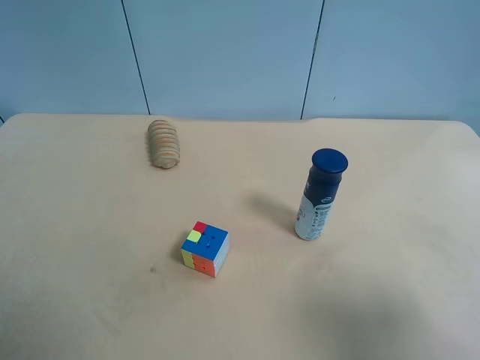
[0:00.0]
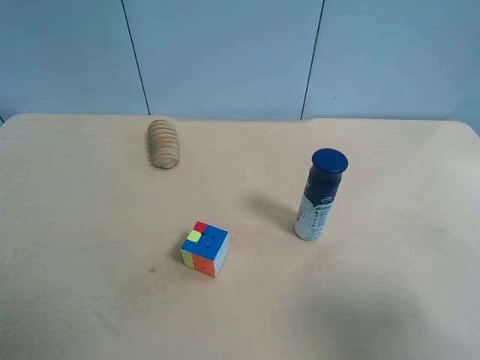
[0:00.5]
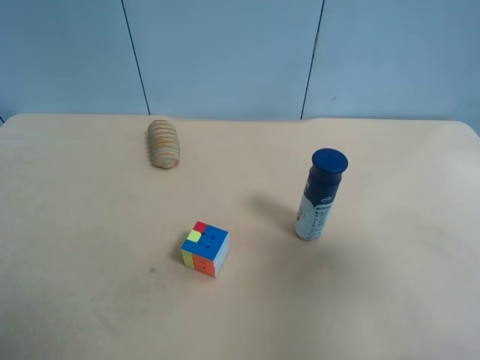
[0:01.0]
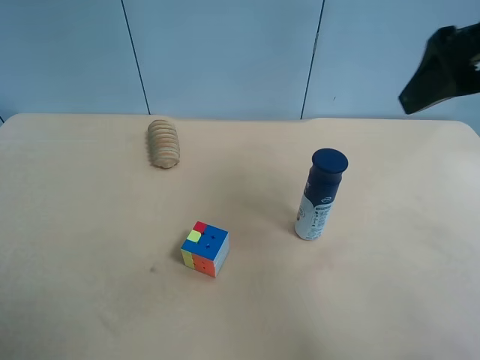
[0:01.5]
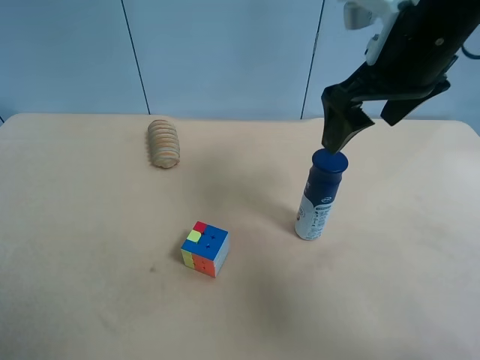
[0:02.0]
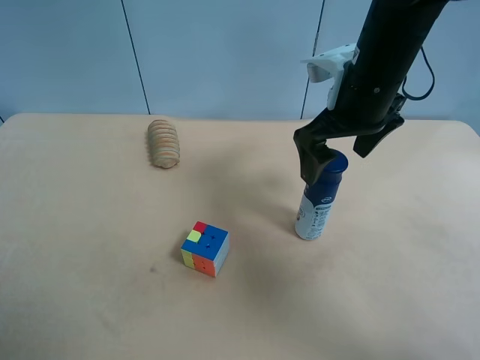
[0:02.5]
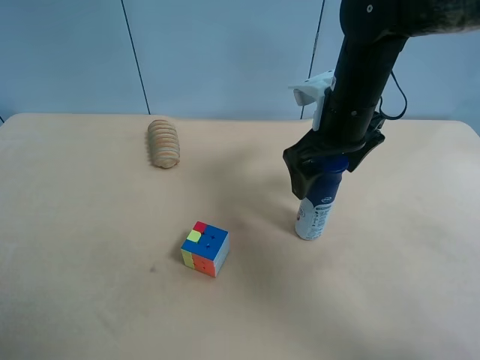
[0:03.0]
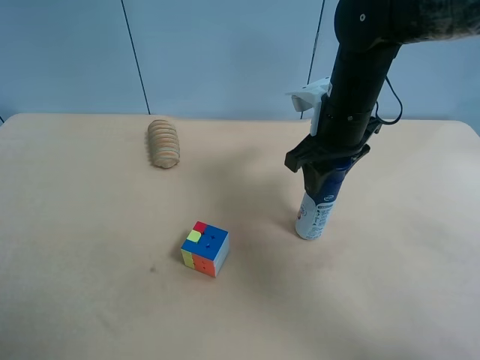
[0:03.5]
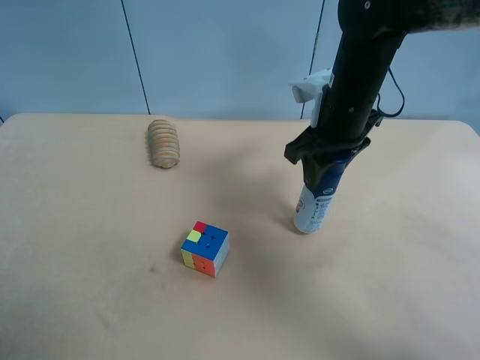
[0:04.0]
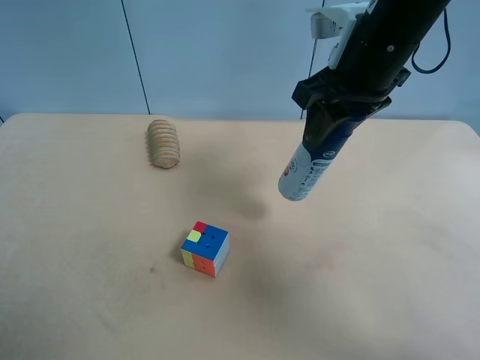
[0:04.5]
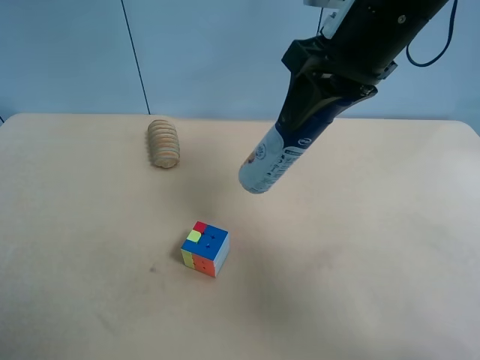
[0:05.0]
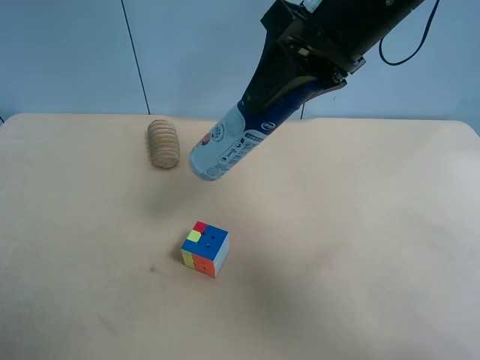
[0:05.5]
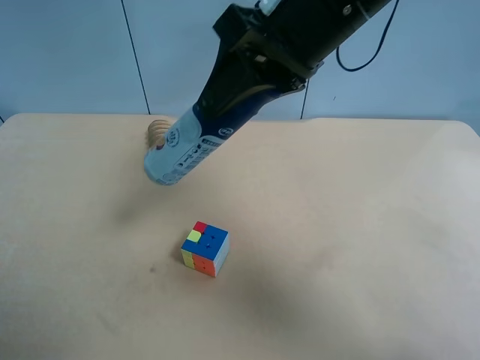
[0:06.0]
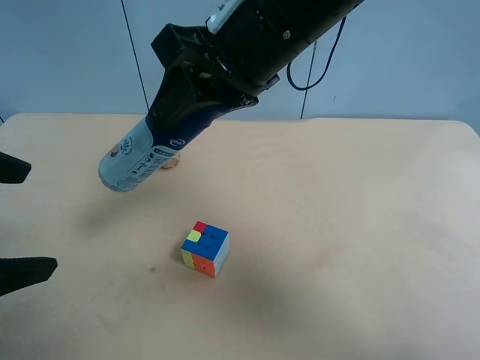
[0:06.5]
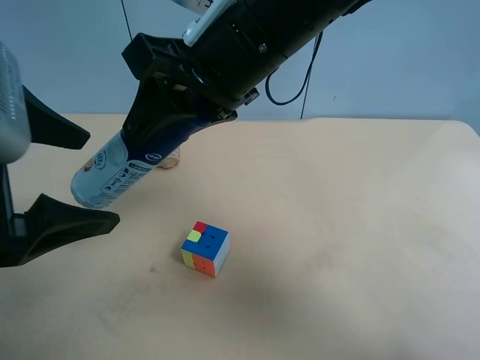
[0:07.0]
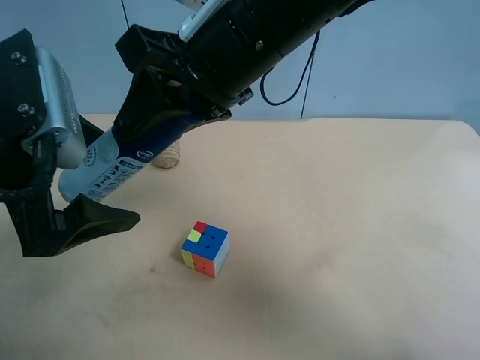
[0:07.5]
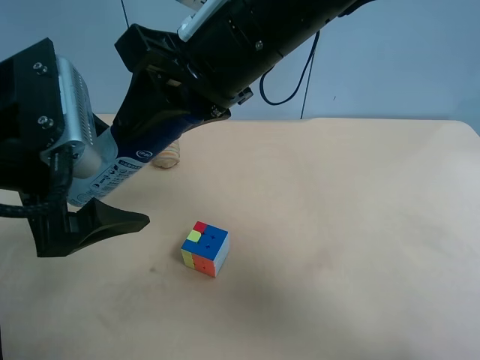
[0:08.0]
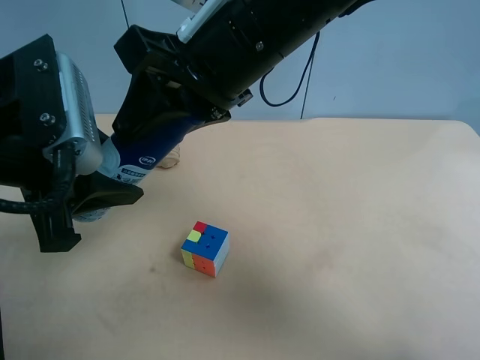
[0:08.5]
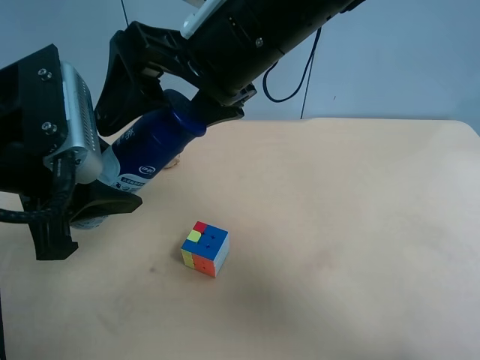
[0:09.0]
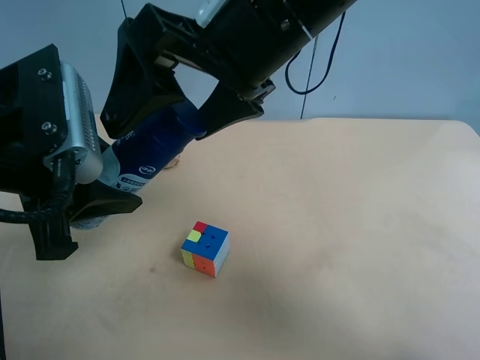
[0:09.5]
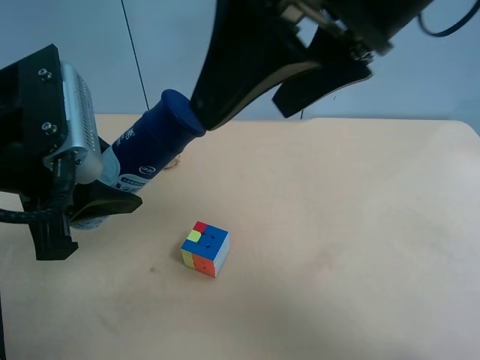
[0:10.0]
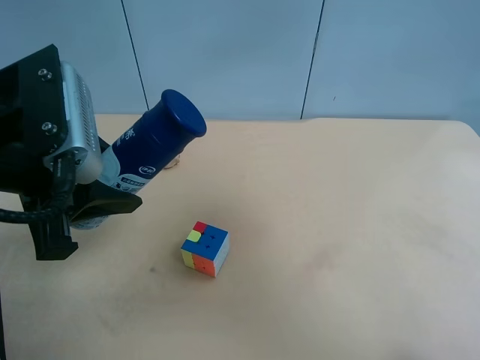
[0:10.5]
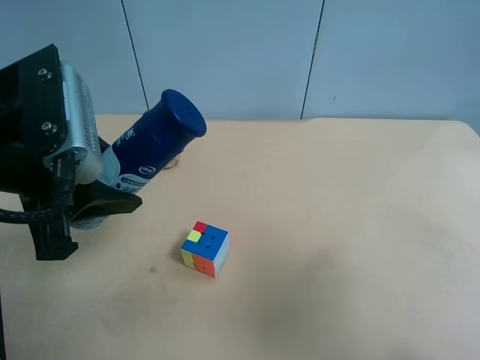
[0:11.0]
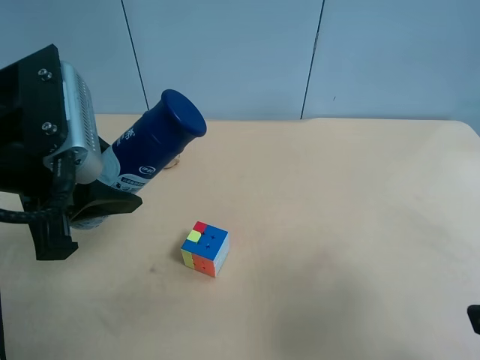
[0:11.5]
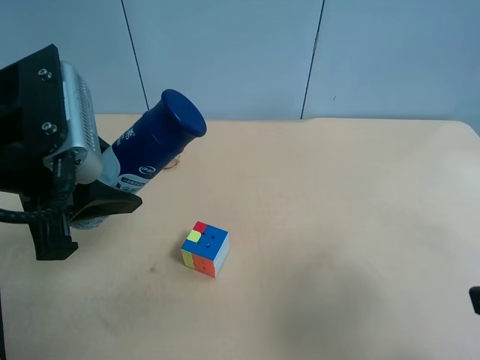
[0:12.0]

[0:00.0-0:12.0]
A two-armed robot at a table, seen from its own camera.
Task of the whole recording: use the right gripper to pick up the item and transfer it from the right gripper to the left gripper.
0:00.0 to 0:02.0: The right gripper heads forward and to the left, covering approximately 30 cm.
0:02.0 to 0:04.0: The right gripper is displaced downward by roughly 5 cm, and closes its fingers.
0:04.0 to 0:06.0: The left gripper goes approximately 5 cm forward. The right gripper moves upward, backward and to the left, approximately 15 cm.
0:06.0 to 0:08.0: The right gripper goes some 5 cm to the left. Meanwhile the left gripper travels forward and to the right by roughly 15 cm.
0:08.0 to 0:10.0: The left gripper closes its fingers. Meanwhile the right gripper moves to the right, upward and backward, roughly 15 cm, and opens.
0:10.0 to 0:12.0: The right gripper travels to the right, backward and downward by approximately 25 cm.

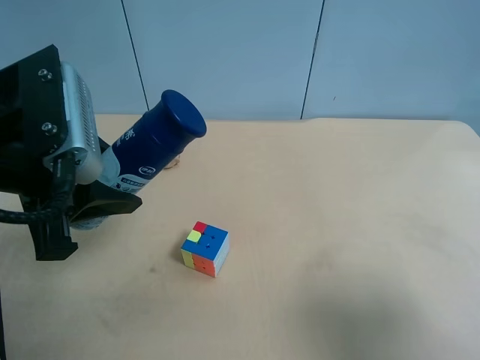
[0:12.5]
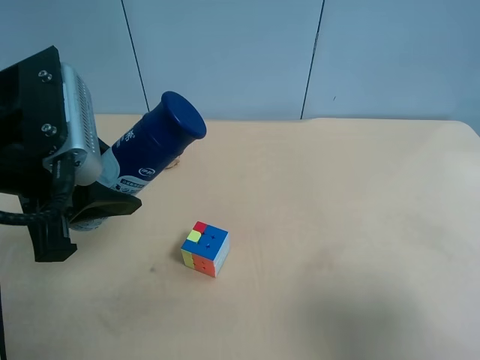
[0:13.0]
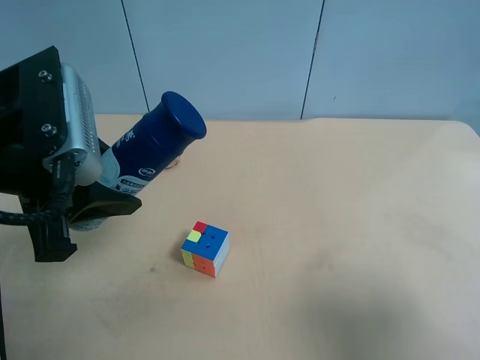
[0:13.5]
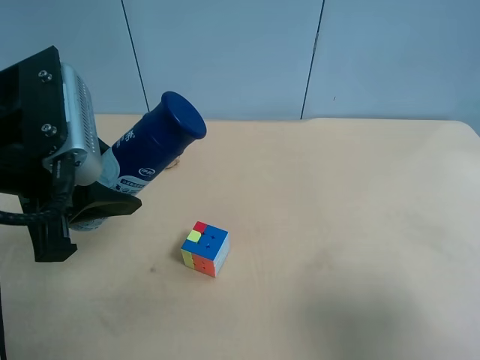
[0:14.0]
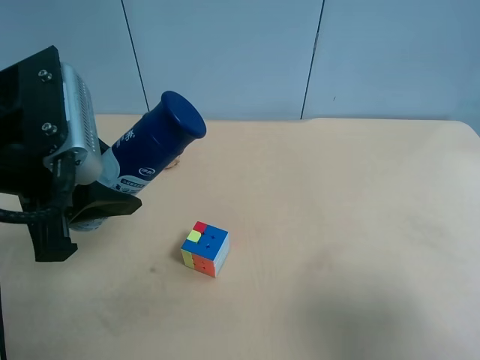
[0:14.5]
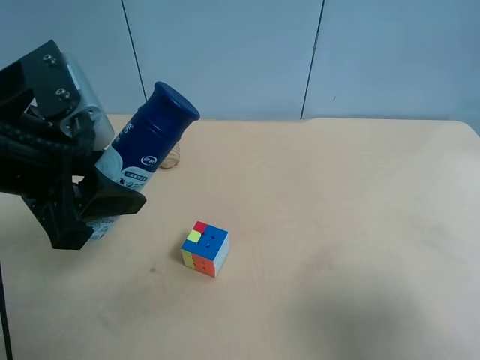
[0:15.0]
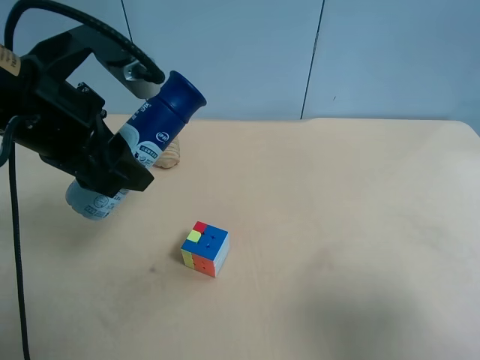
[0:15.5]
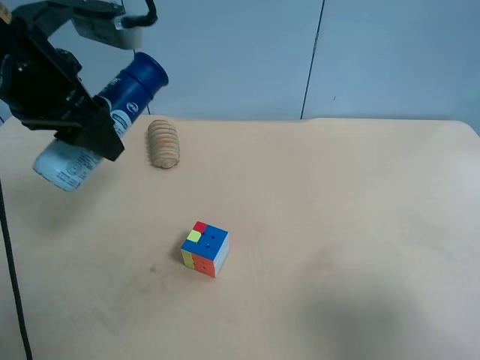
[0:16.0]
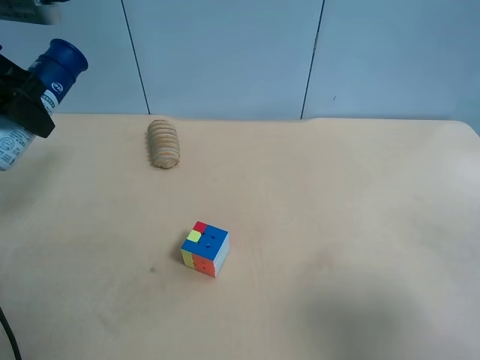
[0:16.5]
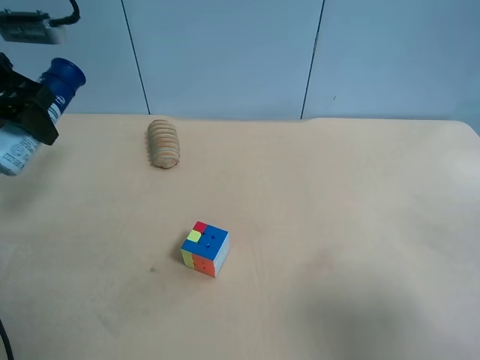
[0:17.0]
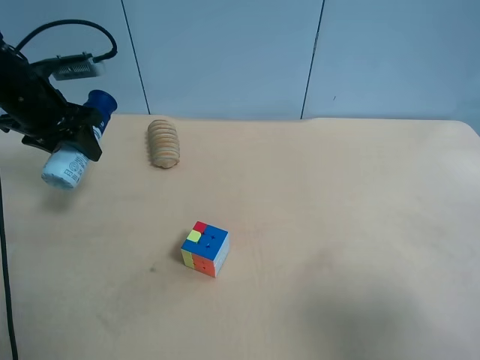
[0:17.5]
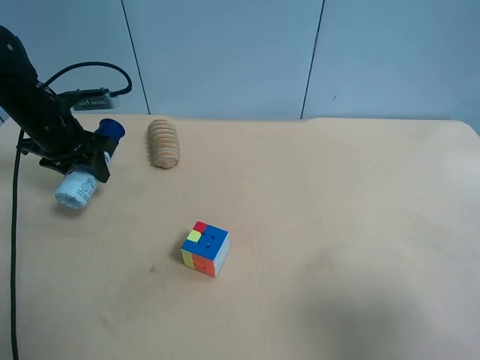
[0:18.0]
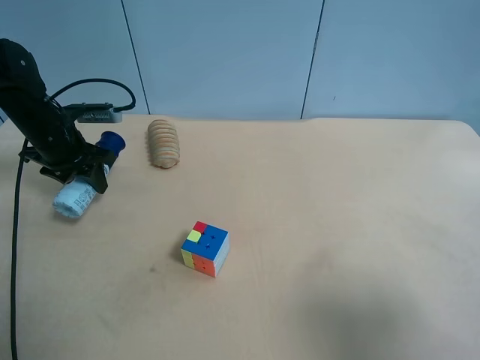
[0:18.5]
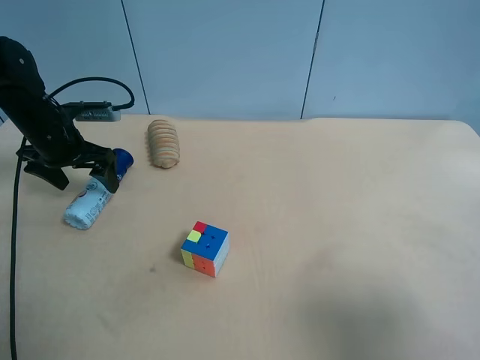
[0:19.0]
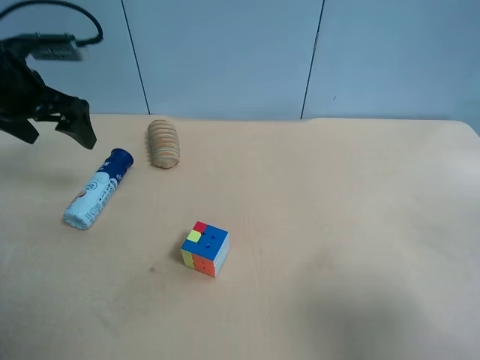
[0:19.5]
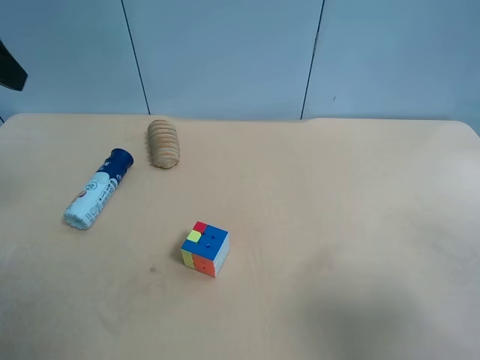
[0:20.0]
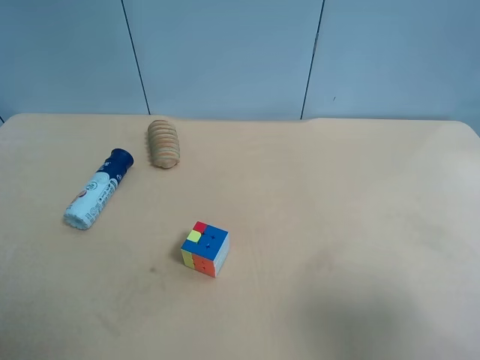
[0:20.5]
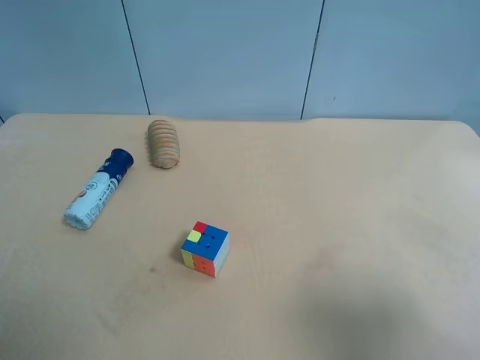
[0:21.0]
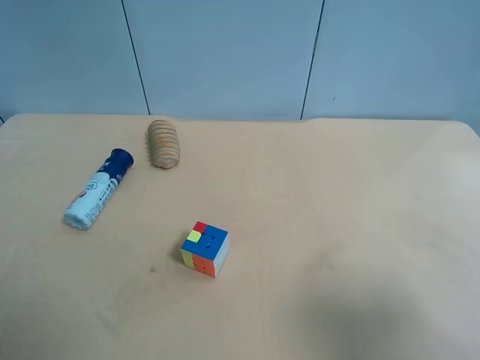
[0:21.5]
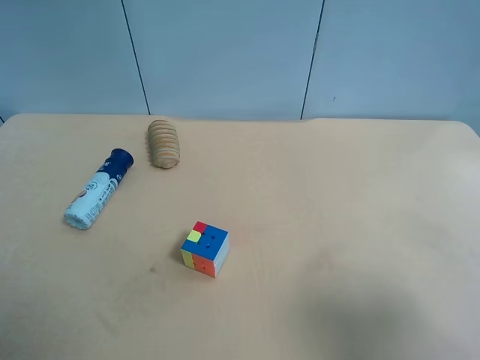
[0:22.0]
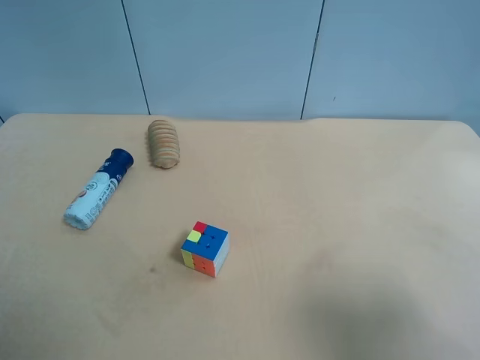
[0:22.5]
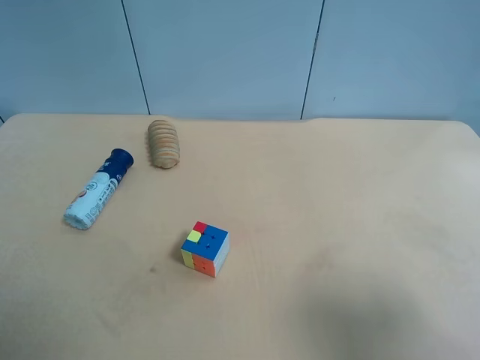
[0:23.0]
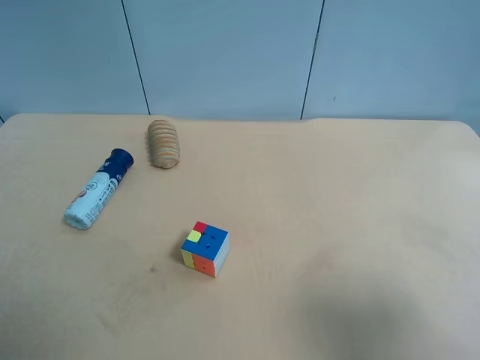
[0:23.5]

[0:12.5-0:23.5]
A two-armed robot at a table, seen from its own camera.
Task of the whole recording: use the right gripper to pick up the item and transfer it from the right gripper to the left gripper.
0:12.5 to 0:14.5: The two grippers keep their place.
0:14.5 to 0:16.0: The left gripper shifts some 10 cm forward.
0:16.0 to 0:18.0: The left gripper is displaced downward, forward and to the left by some 20 cm.
0:18.0 to 0:20.0: The left gripper travels upward and backward by roughly 25 cm, and opens up.

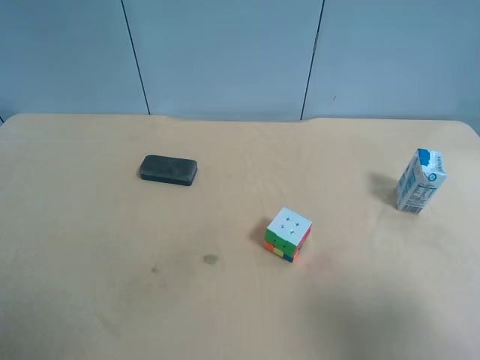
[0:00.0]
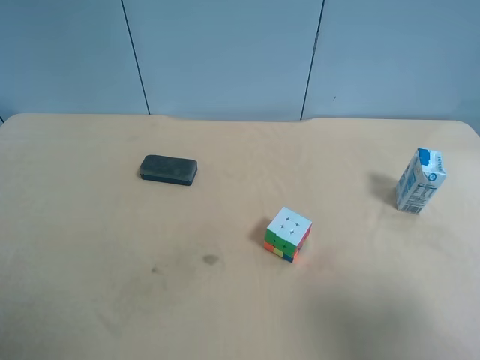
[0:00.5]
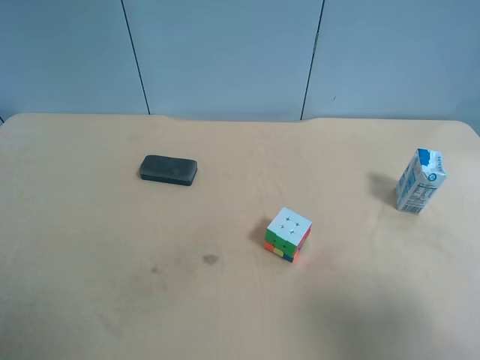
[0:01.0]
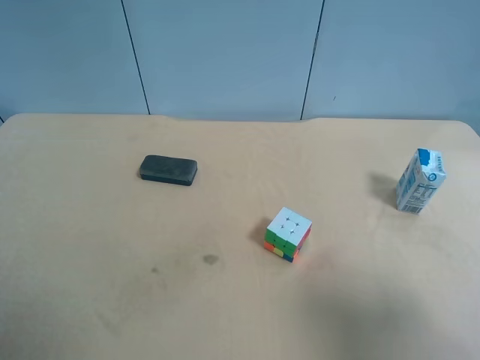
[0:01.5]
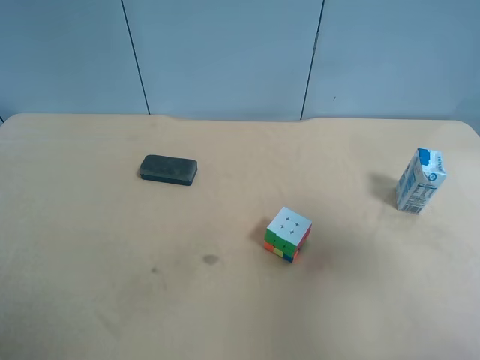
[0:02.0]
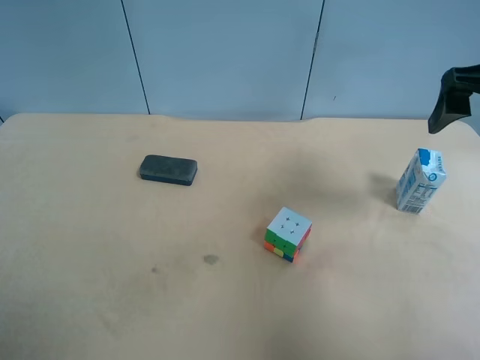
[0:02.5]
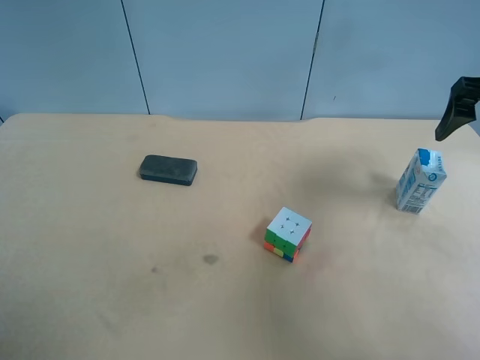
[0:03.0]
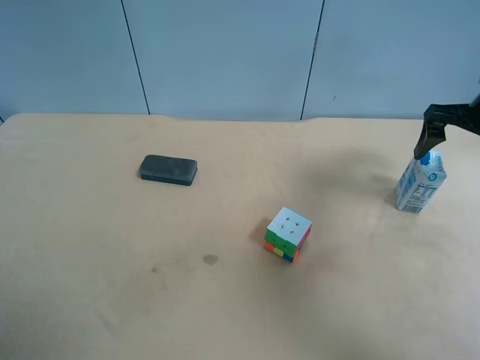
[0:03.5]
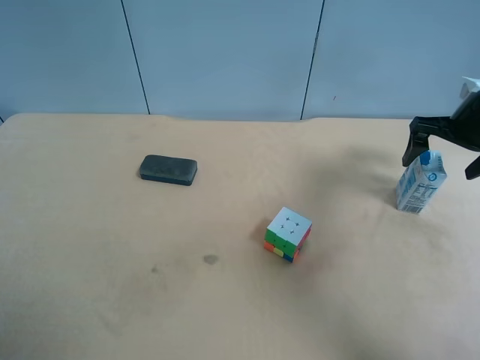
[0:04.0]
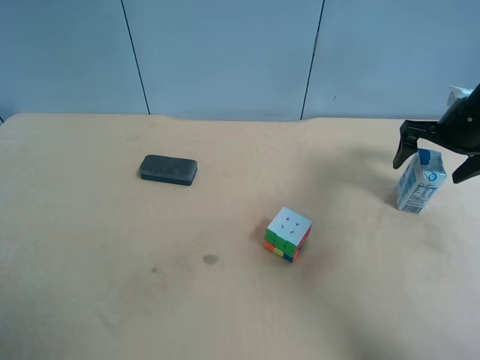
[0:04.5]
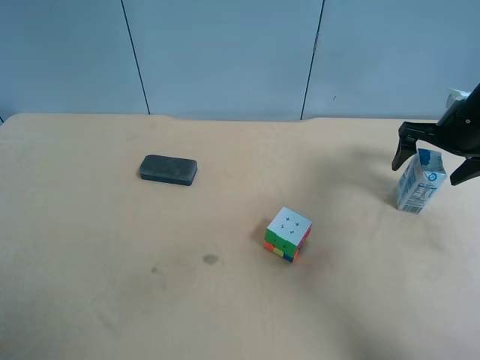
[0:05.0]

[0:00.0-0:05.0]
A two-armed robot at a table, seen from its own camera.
Task of the whole recording: use the right gripper to pick up the item and transfer it from the right gripper to the left gripper.
0:00.0 to 0:02.5: The right gripper moves forward, about 25 cm.
0:02.5 to 0:05.0: The right gripper heads downward, forward and to the right, covering roughly 20 cm.
